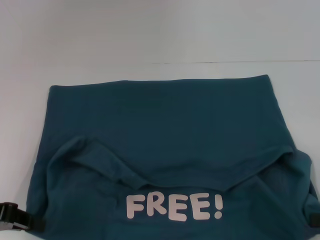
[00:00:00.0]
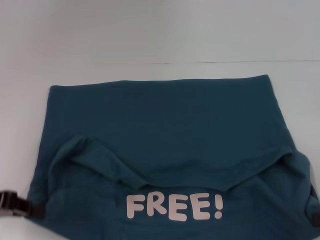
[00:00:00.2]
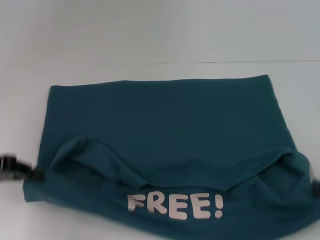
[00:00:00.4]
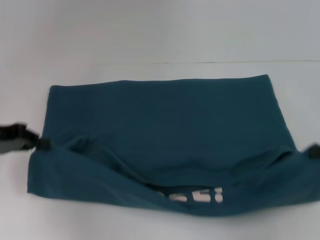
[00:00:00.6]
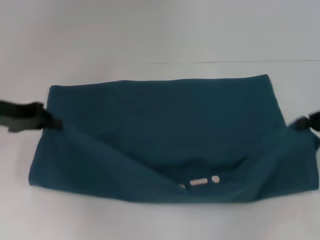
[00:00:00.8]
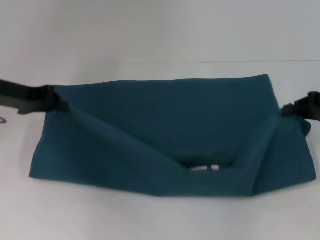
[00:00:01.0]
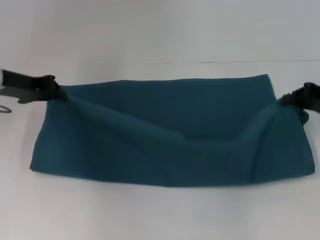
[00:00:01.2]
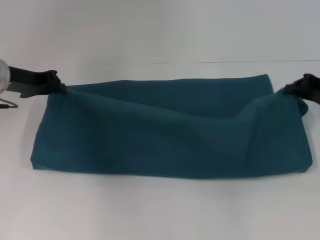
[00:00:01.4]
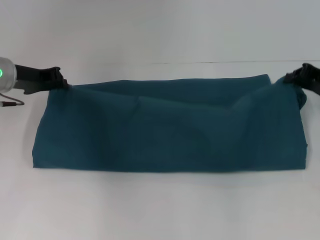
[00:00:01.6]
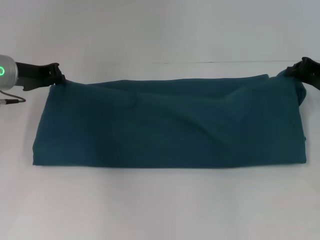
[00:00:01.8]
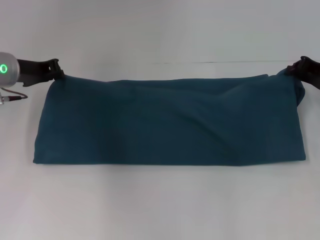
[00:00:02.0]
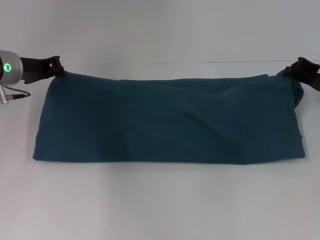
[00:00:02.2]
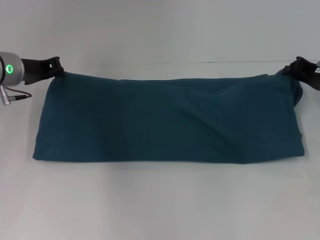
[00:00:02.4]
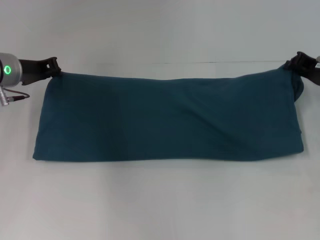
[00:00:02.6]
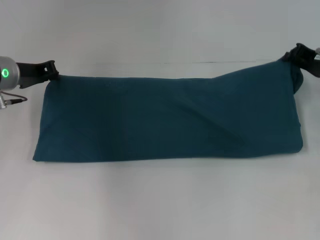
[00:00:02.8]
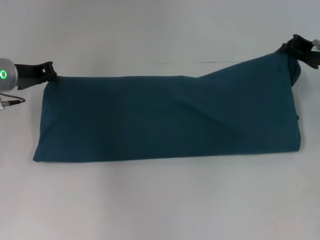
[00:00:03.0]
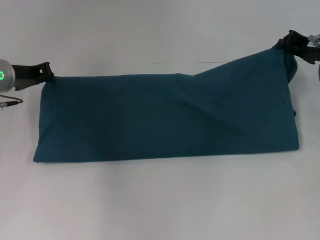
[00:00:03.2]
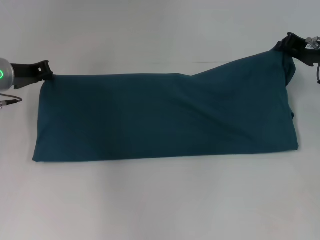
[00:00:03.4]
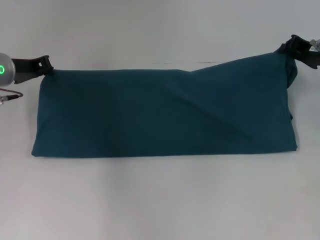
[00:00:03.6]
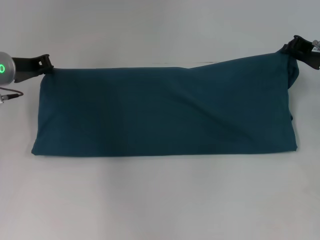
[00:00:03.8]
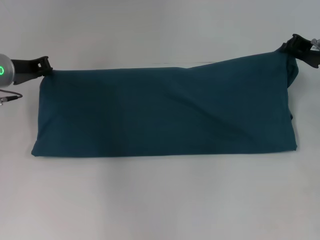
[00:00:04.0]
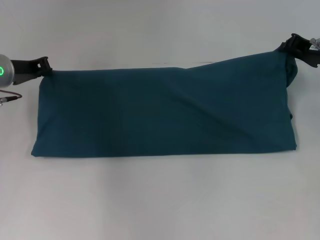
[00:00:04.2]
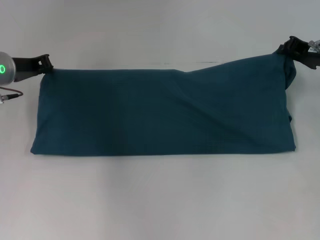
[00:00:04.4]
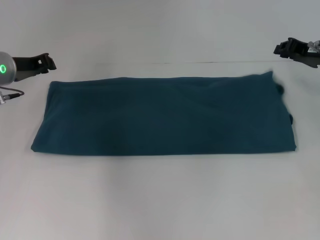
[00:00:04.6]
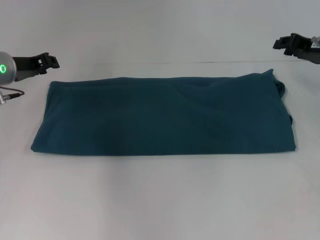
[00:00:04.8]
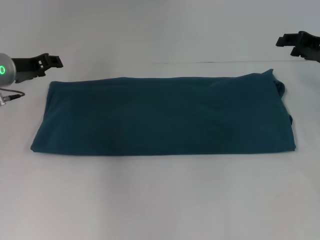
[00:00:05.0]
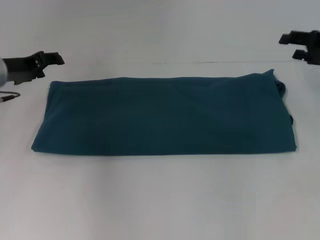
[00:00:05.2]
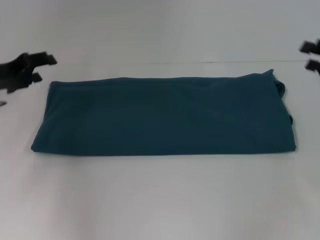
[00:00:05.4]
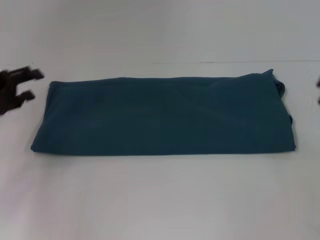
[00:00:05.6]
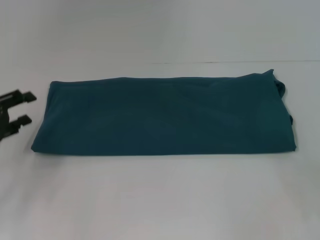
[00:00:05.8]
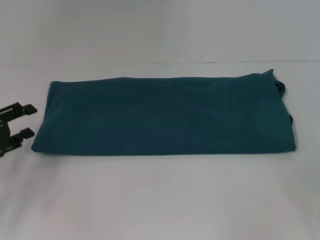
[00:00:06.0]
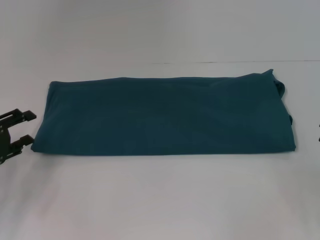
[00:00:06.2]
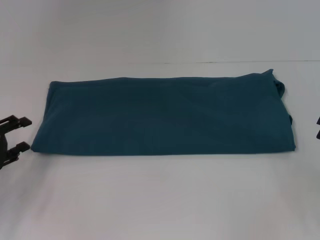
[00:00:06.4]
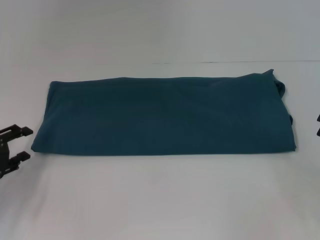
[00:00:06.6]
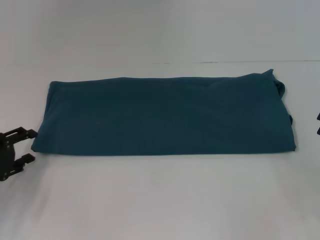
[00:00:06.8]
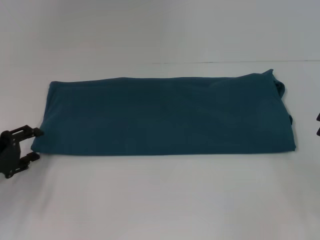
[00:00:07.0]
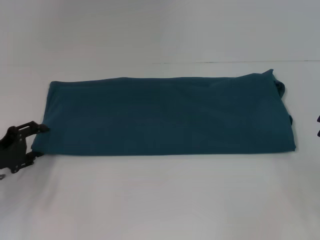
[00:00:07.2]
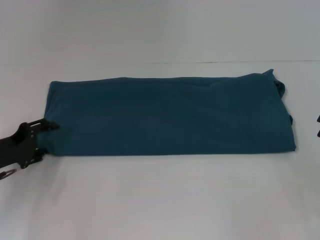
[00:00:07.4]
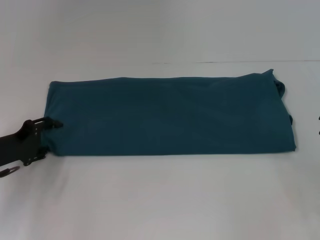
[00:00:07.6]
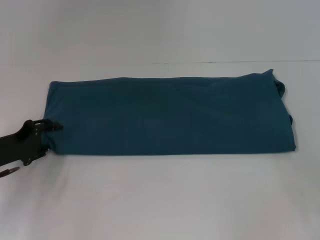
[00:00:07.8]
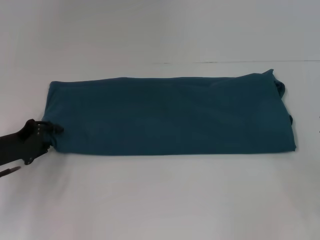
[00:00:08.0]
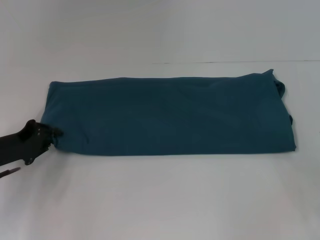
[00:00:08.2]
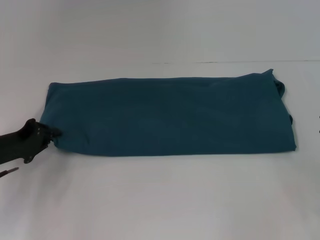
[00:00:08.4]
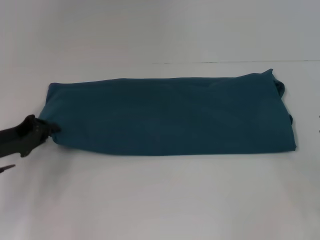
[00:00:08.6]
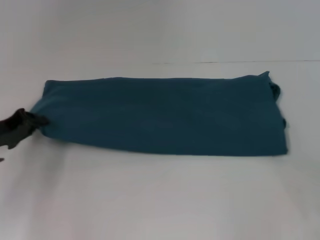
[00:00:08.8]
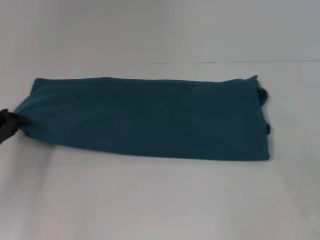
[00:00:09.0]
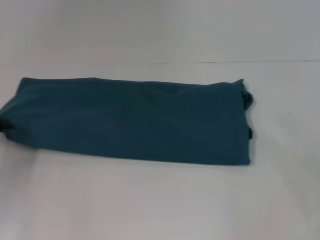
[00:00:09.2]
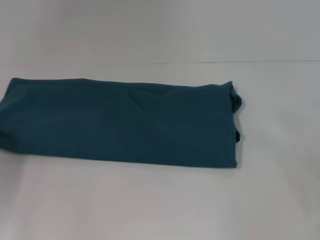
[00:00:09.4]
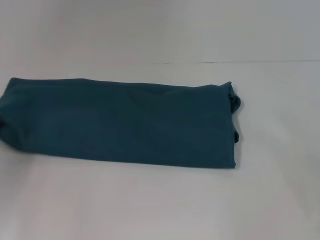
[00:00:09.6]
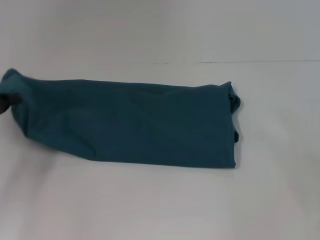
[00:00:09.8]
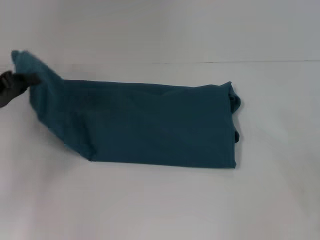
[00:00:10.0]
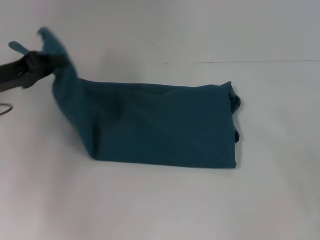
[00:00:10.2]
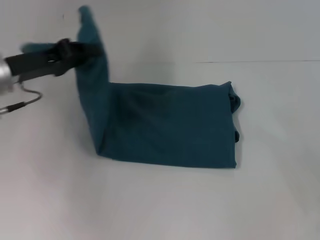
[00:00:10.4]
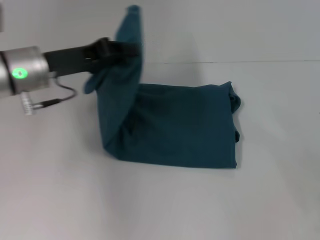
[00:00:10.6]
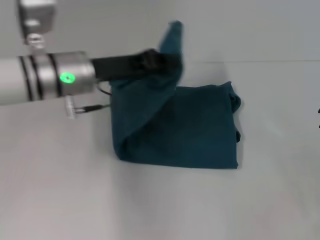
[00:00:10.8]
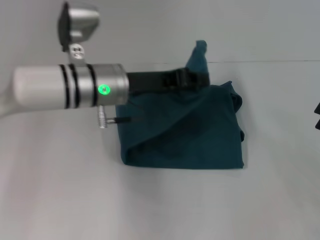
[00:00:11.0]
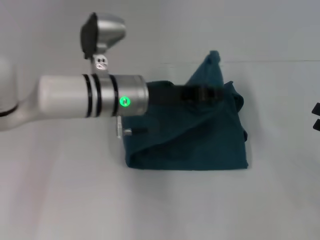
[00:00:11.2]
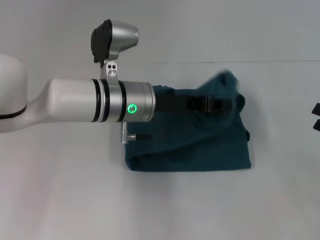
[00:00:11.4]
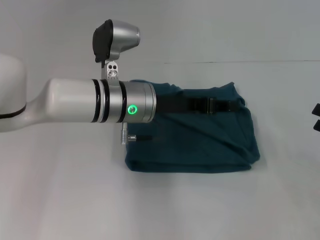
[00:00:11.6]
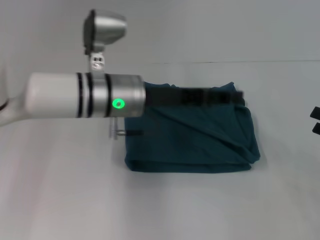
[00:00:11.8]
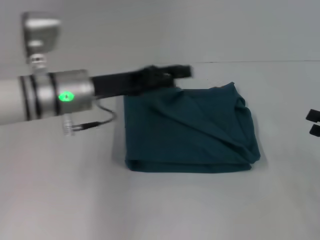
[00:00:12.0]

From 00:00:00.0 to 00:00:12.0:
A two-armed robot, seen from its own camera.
Step, from 00:00:00.2 to 00:00:05.0: Fold the clothes to the right.
Step, from 00:00:00.2 to 00:00:11.6: Fold the clothes to the left.
From 00:00:00.0 to 00:00:01.6: Both grippers move forward, about 15 cm.
From 00:00:01.6 to 00:00:03.0: The grippers stay close to where they were, moving slightly.
From 00:00:03.0 to 00:00:04.4: Both grippers stay about where they are.
From 00:00:04.4 to 00:00:06.0: The right gripper goes about 20 cm backward and to the right, and opens; the left gripper goes approximately 15 cm backward and to the left, and opens its fingers.
From 00:00:06.0 to 00:00:07.6: The left gripper ends up roughly 5 cm from where it was.
From 00:00:07.6 to 00:00:09.0: The left gripper closes its fingers.
From 00:00:09.0 to 00:00:10.4: The left gripper moves upward and to the right, some 10 cm.
From 00:00:10.4 to 00:00:12.0: The left gripper shifts about 10 cm to the right, and opens up.

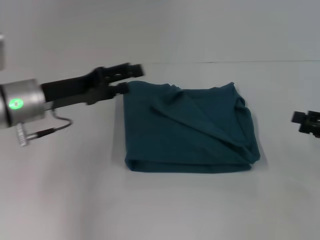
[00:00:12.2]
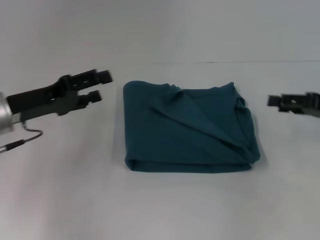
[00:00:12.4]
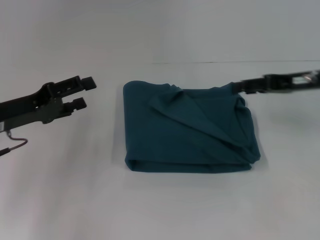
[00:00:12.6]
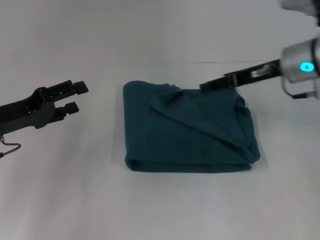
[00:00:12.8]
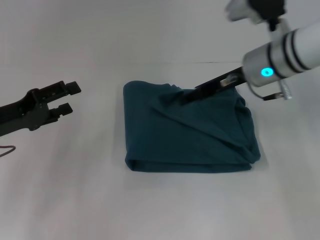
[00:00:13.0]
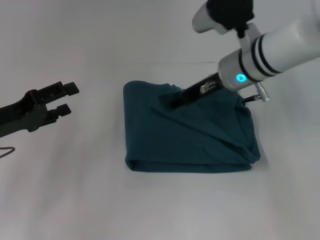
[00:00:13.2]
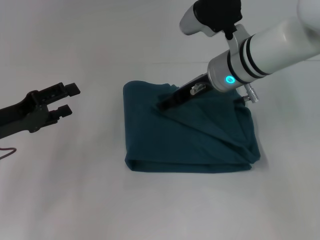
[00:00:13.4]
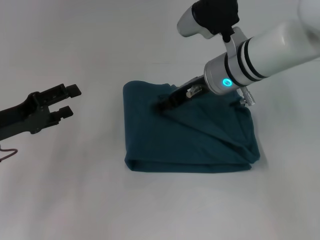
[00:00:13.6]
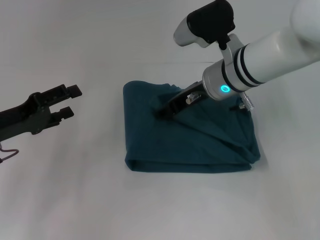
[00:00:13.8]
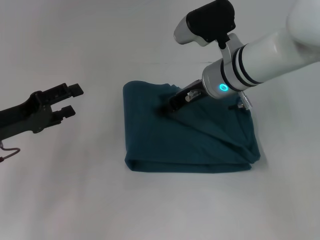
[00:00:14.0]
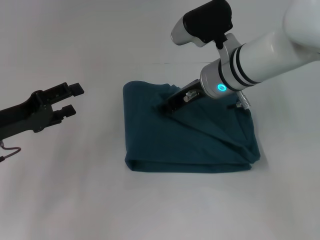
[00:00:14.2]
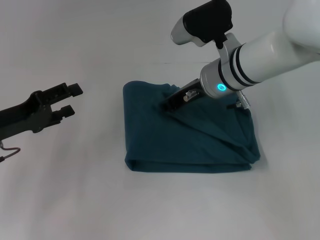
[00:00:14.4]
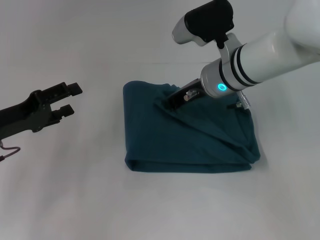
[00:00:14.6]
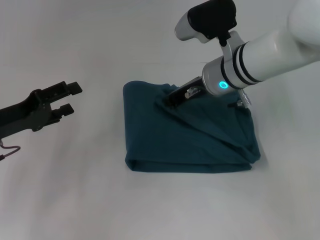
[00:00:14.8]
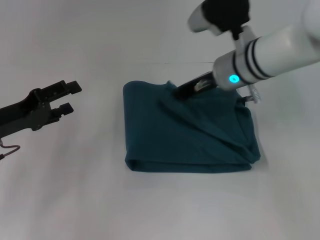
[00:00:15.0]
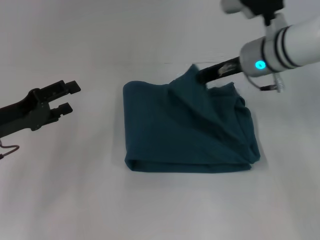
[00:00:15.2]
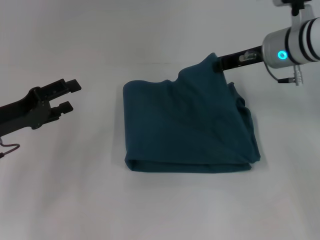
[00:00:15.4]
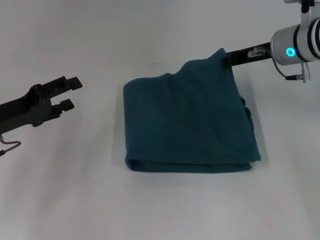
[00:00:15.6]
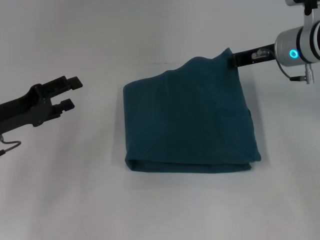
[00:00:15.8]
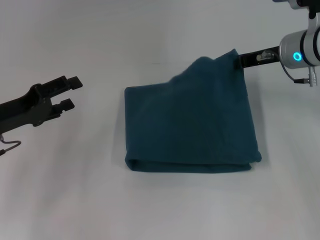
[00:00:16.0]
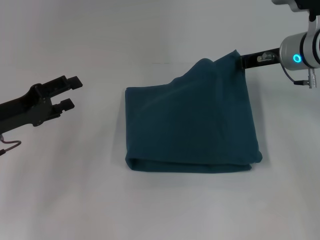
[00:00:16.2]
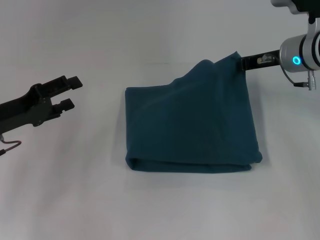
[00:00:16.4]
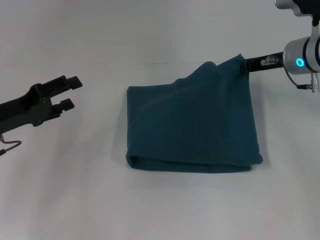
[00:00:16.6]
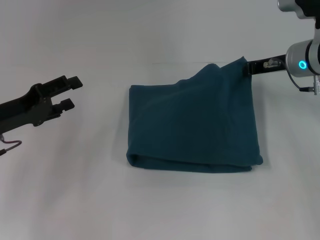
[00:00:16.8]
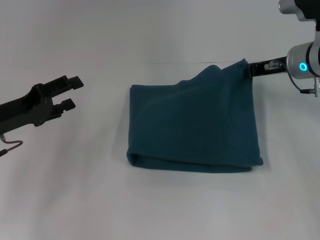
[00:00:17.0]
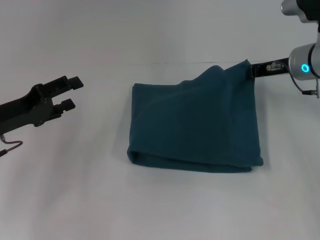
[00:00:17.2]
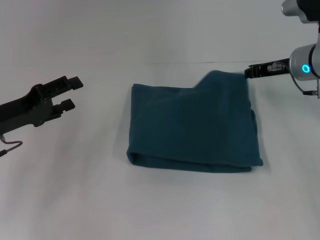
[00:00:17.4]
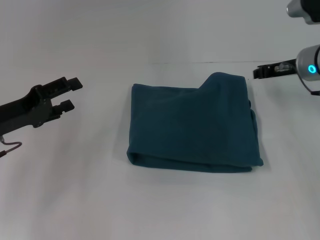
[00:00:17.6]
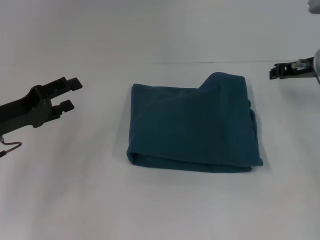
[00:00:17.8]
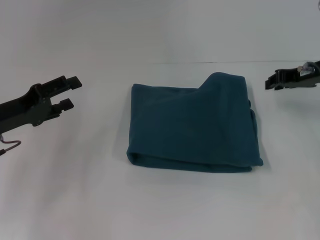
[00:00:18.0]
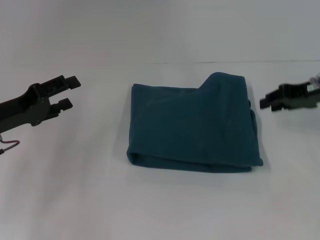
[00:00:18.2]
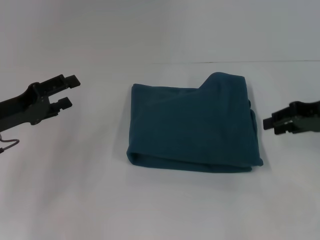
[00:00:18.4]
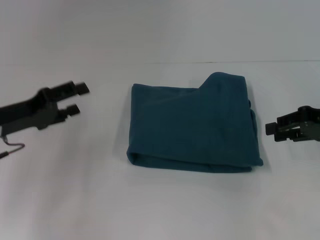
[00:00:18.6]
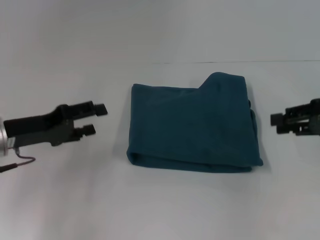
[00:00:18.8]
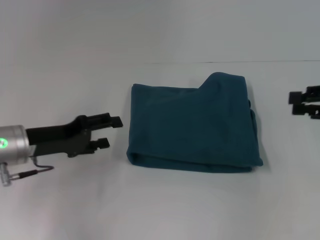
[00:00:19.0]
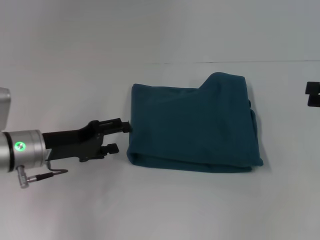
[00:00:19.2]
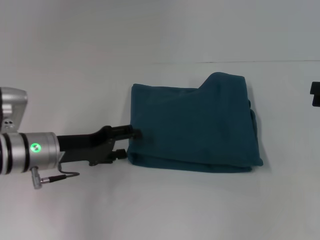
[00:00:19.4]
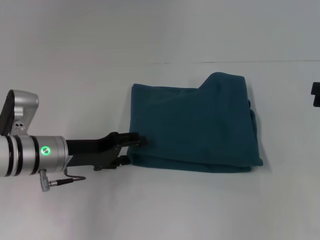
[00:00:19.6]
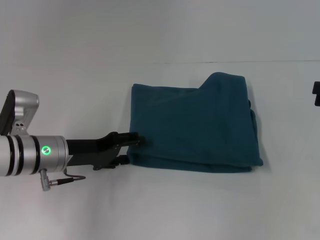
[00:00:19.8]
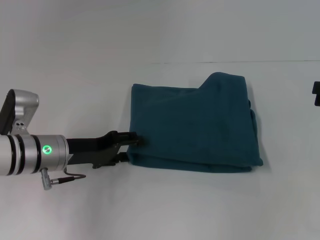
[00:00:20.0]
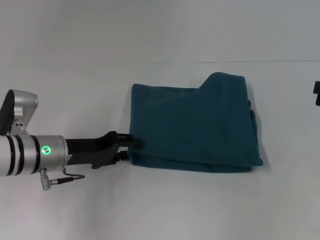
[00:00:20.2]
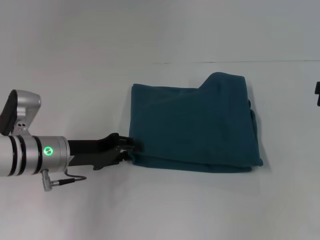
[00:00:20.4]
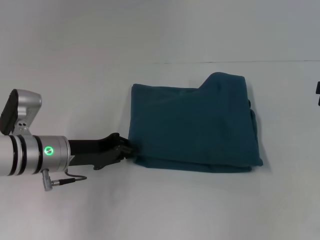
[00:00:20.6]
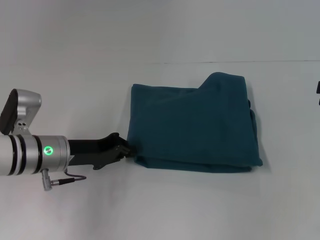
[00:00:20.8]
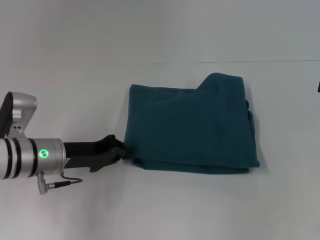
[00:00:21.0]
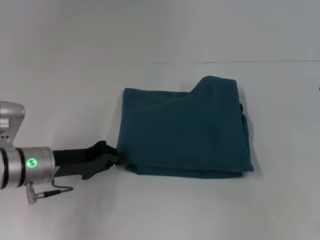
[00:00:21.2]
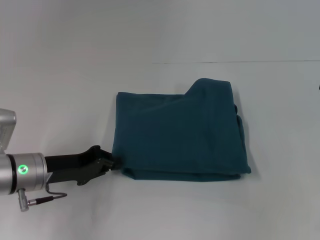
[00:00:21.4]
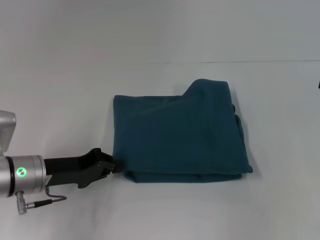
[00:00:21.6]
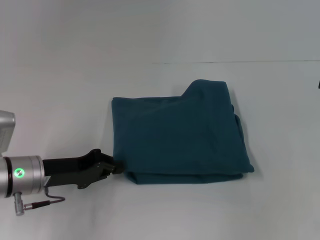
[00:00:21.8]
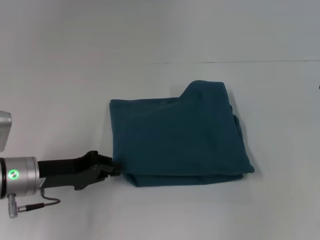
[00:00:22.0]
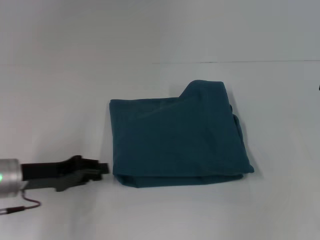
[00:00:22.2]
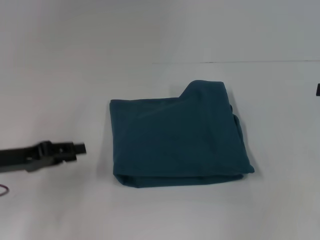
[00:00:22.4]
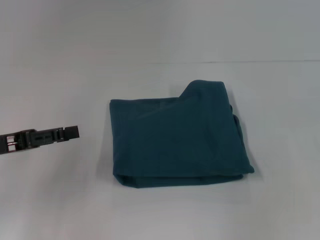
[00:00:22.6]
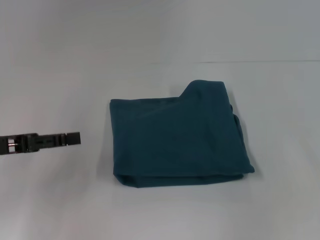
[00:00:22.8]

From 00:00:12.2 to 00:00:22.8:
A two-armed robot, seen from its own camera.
From 00:00:12.2 to 00:00:13.8: The left gripper travels to the left by approximately 10 cm. Meanwhile the right gripper heads to the left and forward, covering approximately 30 cm.
From 00:00:13.8 to 00:00:15.2: The right gripper travels to the right by about 5 cm, and closes.
From 00:00:15.2 to 00:00:16.8: The right gripper goes about 10 cm to the right.
From 00:00:16.8 to 00:00:18.2: The right gripper goes roughly 5 cm to the right, and opens its fingers.
From 00:00:18.2 to 00:00:19.8: The right gripper travels to the right and backward by roughly 15 cm. The left gripper goes approximately 10 cm to the right.
From 00:00:19.8 to 00:00:21.2: The left gripper closes.
From 00:00:21.2 to 00:00:22.8: The left gripper goes some 10 cm to the left and upward, and opens its fingers.
